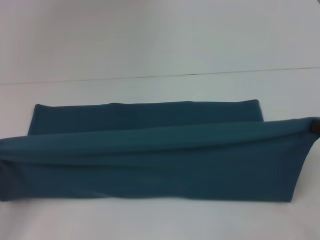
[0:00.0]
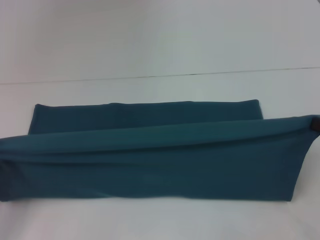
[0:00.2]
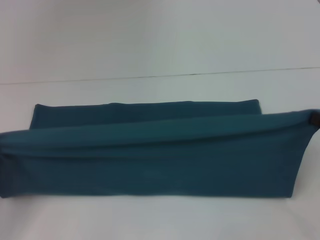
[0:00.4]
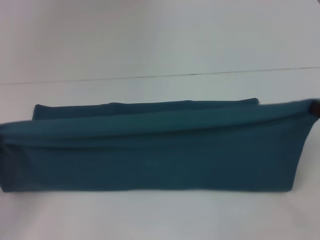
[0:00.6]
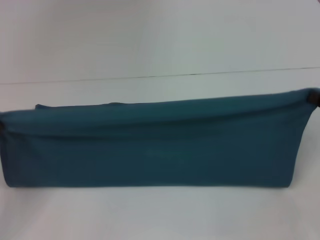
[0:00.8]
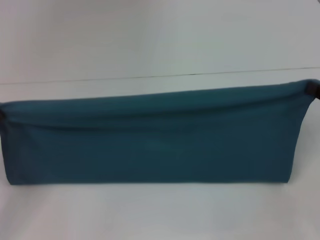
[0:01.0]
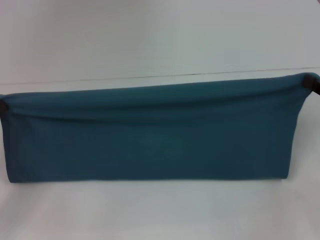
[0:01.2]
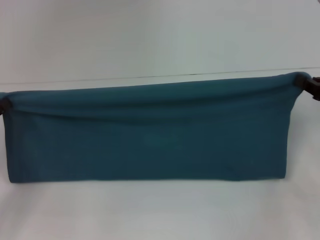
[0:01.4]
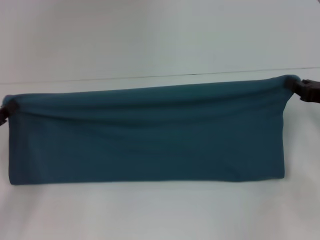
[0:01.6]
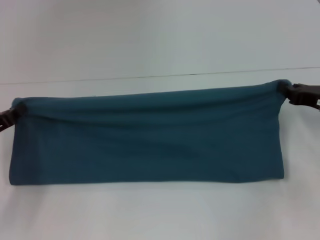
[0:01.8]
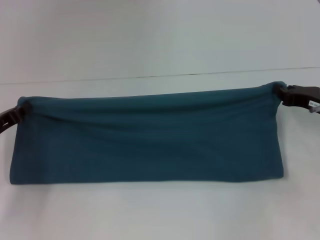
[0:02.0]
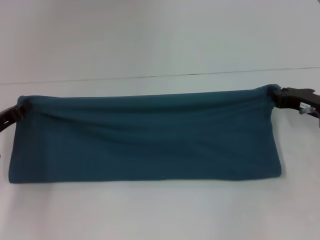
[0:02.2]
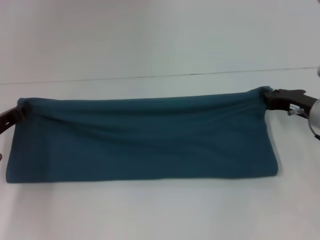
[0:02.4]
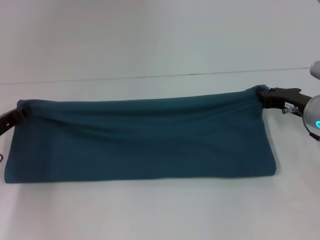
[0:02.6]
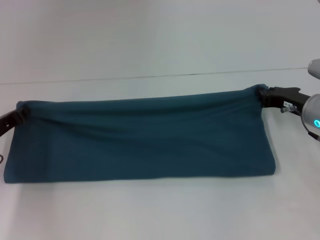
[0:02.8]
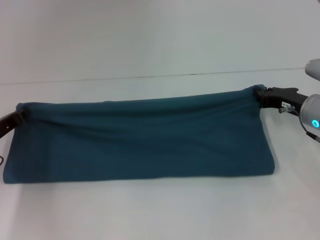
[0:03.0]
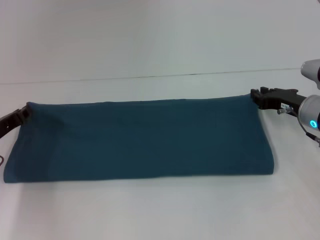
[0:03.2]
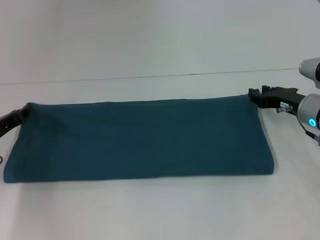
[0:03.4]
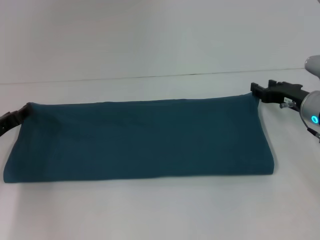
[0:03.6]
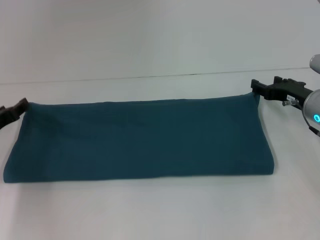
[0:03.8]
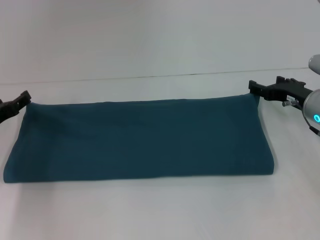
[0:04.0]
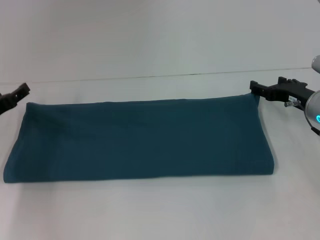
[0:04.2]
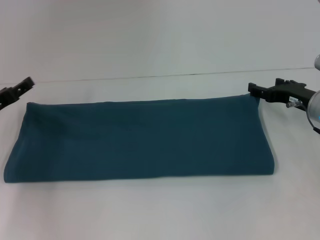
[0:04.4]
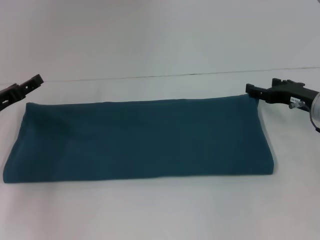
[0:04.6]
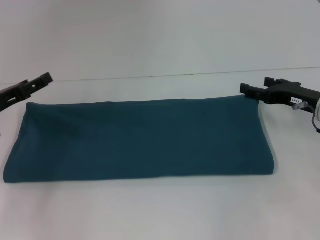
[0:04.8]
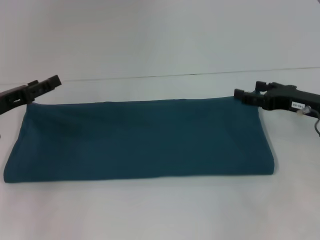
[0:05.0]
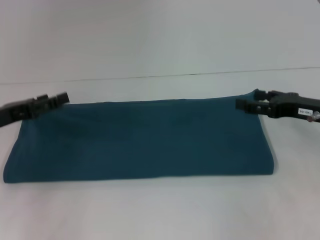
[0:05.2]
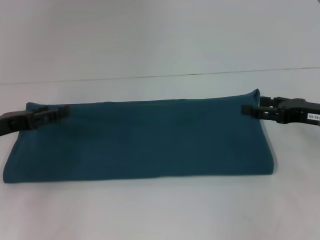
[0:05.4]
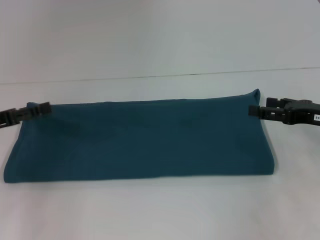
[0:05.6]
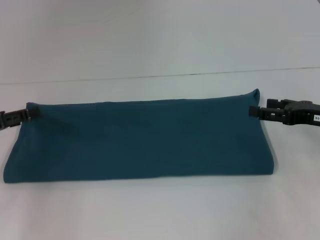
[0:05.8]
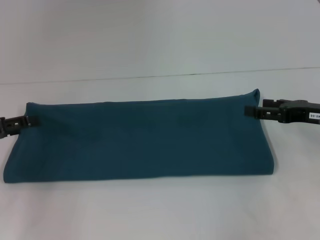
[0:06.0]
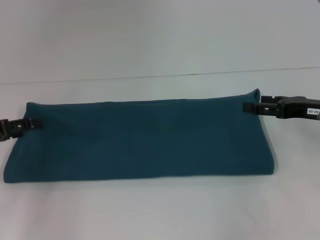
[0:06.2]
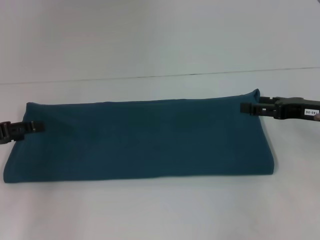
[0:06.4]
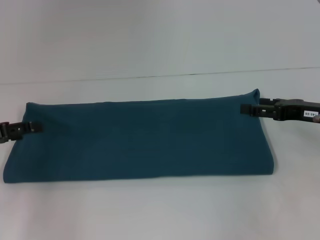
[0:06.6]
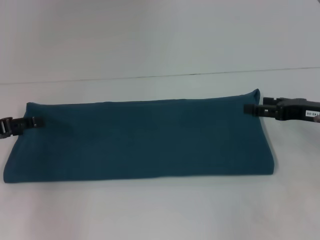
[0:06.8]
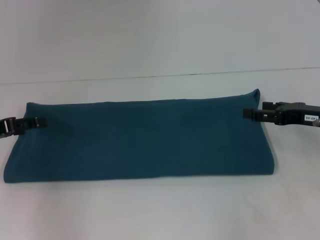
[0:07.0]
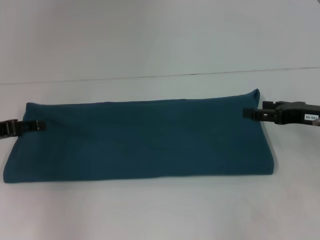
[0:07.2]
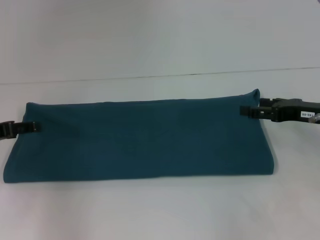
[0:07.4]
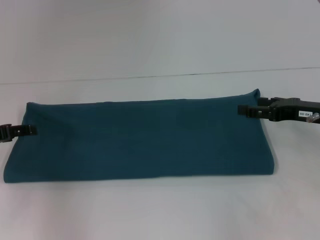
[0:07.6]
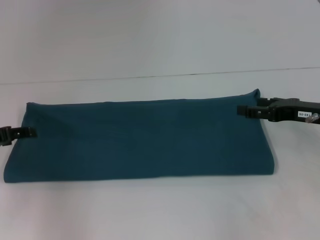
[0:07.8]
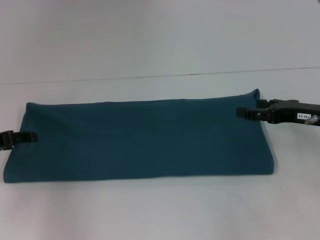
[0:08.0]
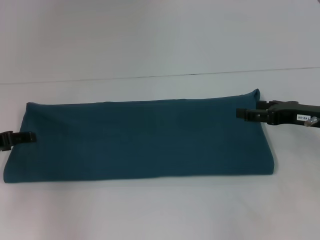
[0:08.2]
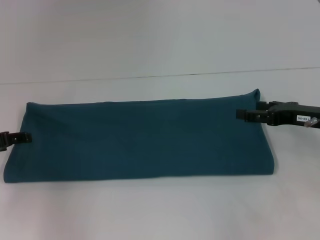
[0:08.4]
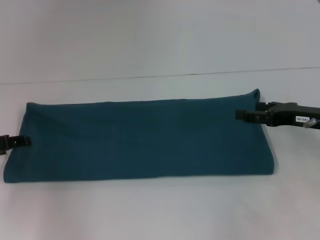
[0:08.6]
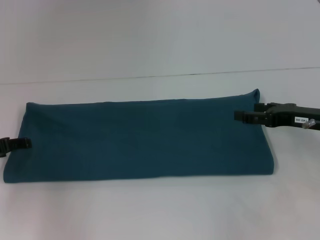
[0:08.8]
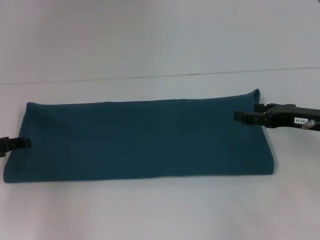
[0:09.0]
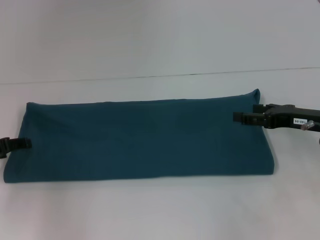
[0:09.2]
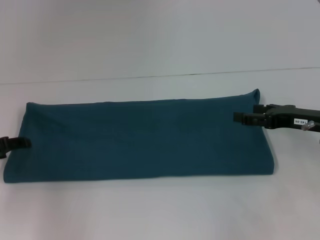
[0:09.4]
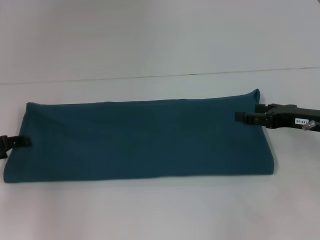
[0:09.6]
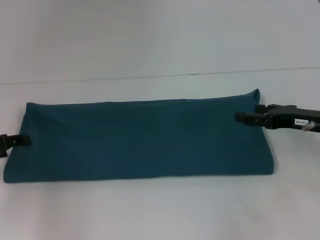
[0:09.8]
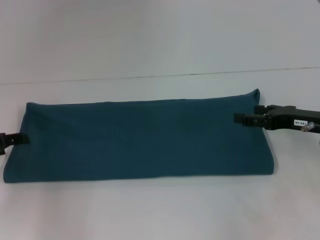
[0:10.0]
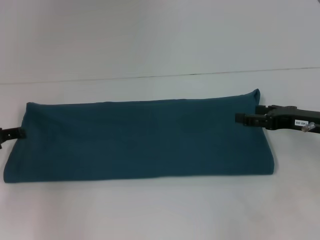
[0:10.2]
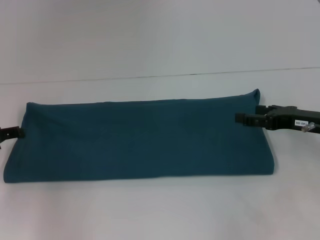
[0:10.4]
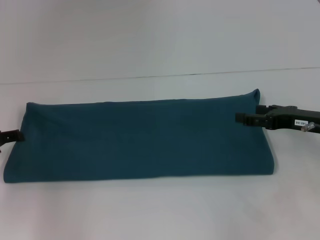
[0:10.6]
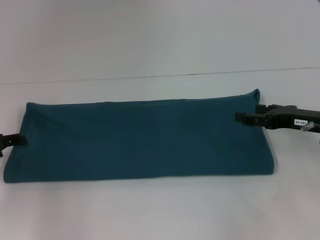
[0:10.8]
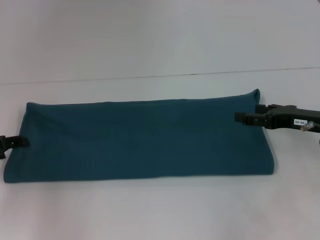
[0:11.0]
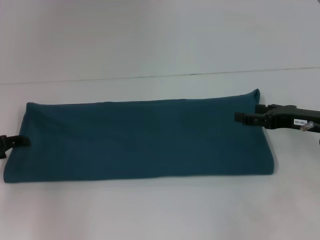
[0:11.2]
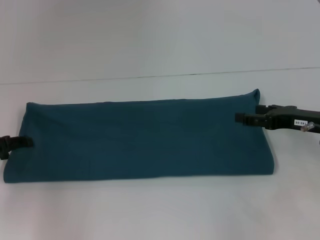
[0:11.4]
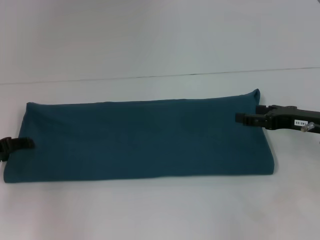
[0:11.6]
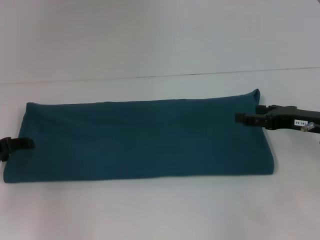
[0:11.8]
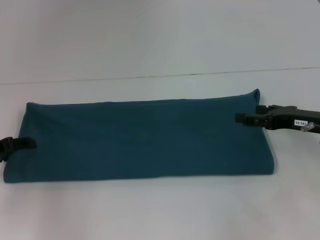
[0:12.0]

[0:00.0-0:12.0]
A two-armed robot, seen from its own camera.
Step, 0:00.0 to 0:03.0: Fold the clothes to the left.
0:00.0 to 0:01.6: Both grippers move forward, some 10 cm.
0:01.6 to 0:03.0: The left gripper moves roughly 5 cm. Meanwhile the right gripper goes approximately 5 cm to the left.
0:03.0 to 0:04.4: The right gripper opens up. Meanwhile the left gripper opens its fingers.
0:04.4 to 0:06.0: The left gripper moves roughly 5 cm; the right gripper ends up about 5 cm from where it was.
0:06.0 to 0:07.6: There are only small adjustments of the grippers.
0:07.6 to 0:10.4: The grippers stay close to where they were, moving slightly.

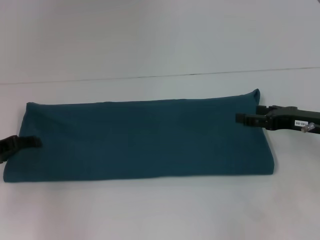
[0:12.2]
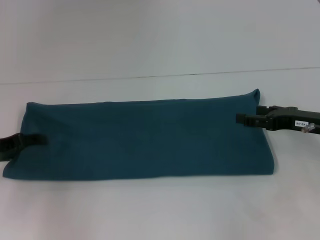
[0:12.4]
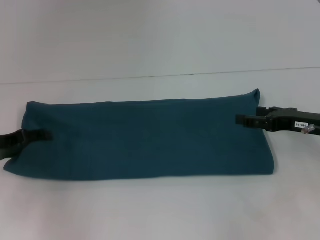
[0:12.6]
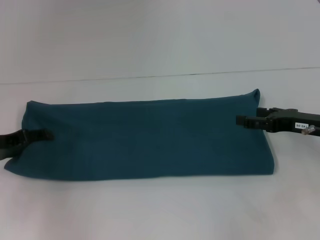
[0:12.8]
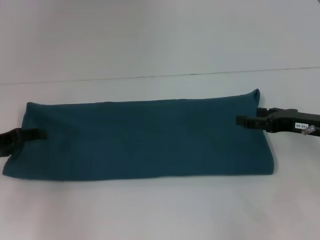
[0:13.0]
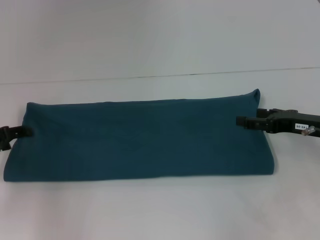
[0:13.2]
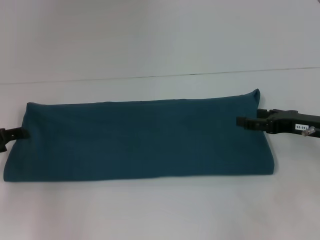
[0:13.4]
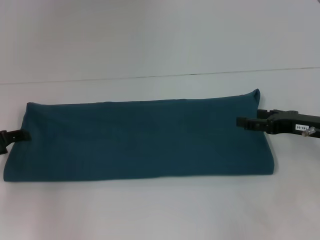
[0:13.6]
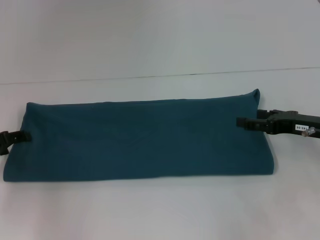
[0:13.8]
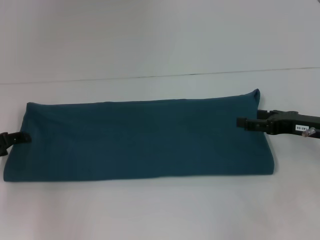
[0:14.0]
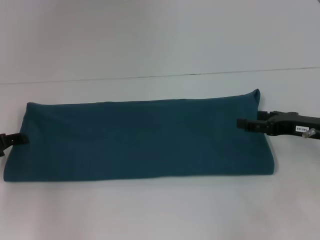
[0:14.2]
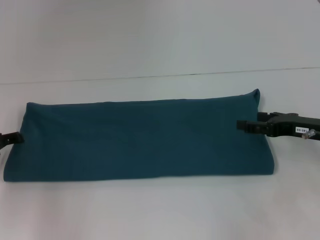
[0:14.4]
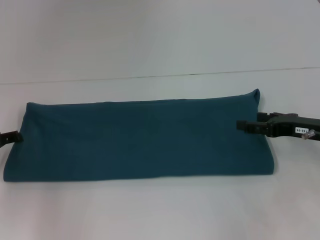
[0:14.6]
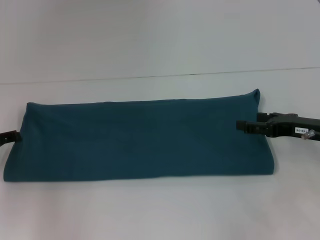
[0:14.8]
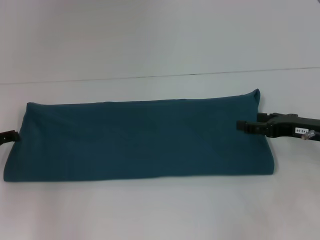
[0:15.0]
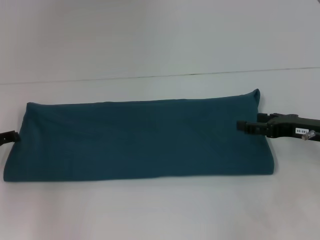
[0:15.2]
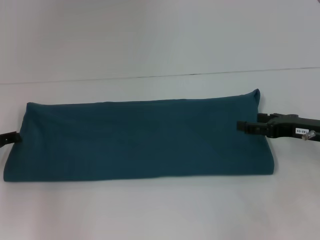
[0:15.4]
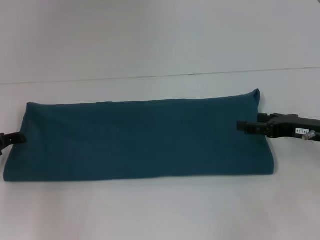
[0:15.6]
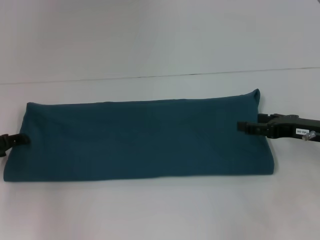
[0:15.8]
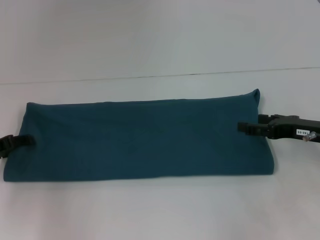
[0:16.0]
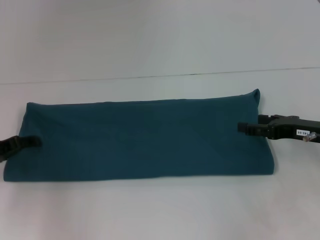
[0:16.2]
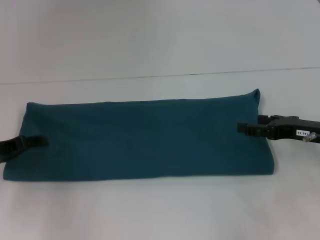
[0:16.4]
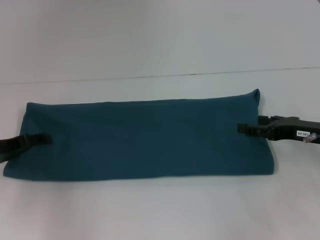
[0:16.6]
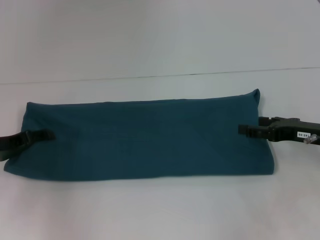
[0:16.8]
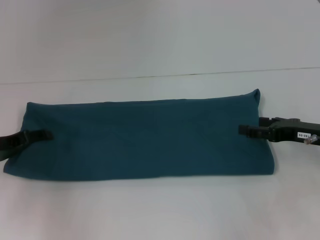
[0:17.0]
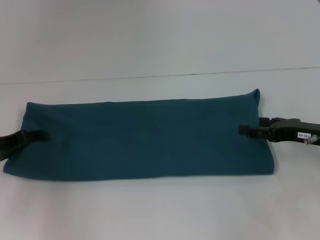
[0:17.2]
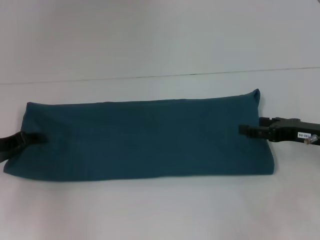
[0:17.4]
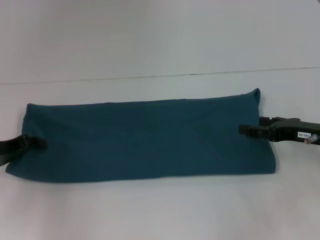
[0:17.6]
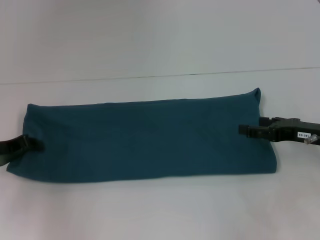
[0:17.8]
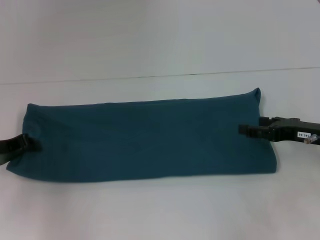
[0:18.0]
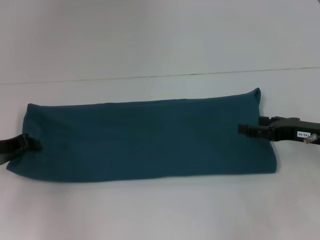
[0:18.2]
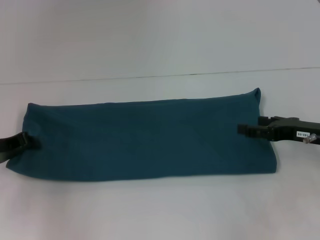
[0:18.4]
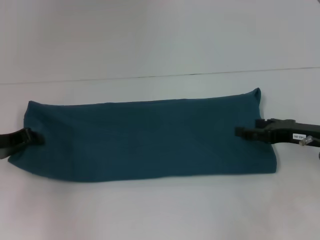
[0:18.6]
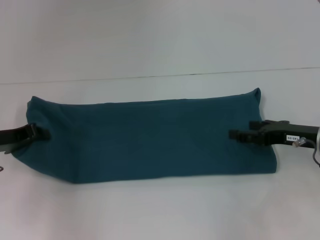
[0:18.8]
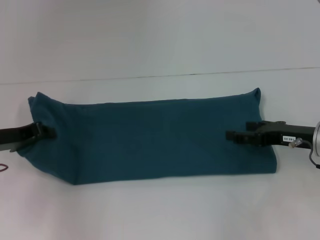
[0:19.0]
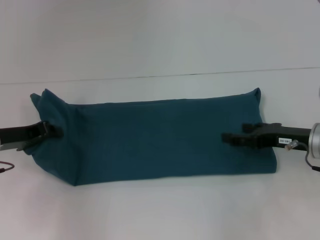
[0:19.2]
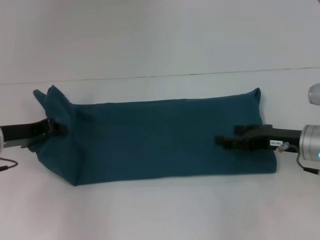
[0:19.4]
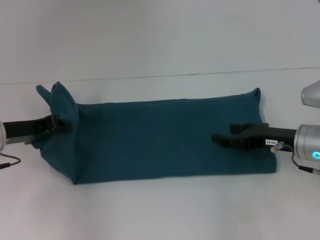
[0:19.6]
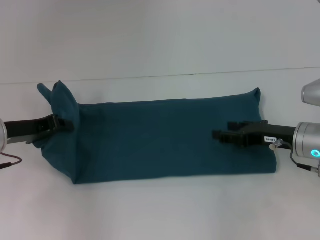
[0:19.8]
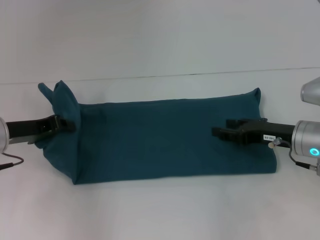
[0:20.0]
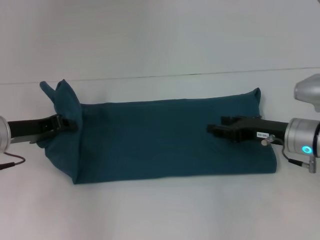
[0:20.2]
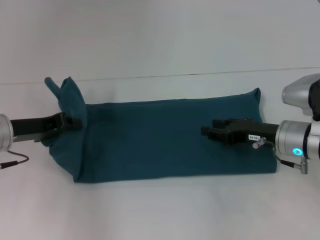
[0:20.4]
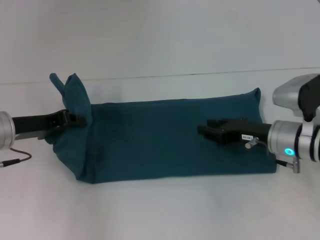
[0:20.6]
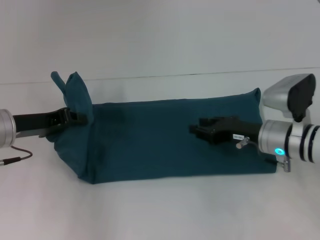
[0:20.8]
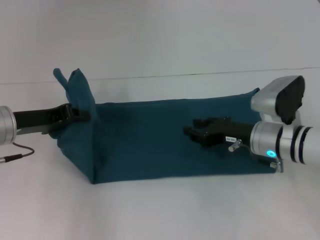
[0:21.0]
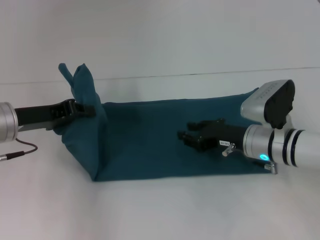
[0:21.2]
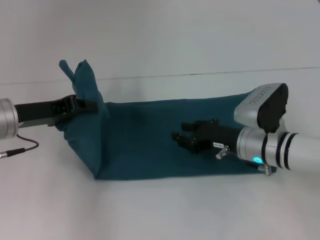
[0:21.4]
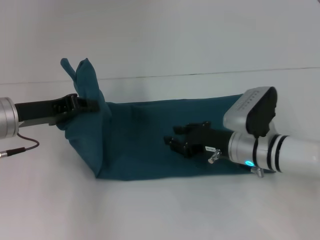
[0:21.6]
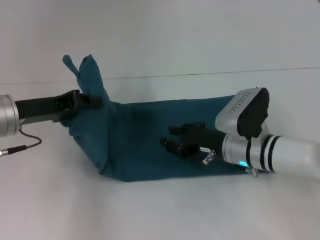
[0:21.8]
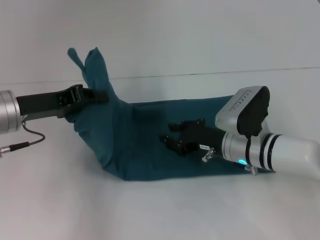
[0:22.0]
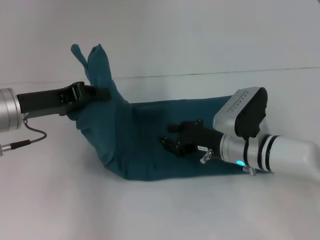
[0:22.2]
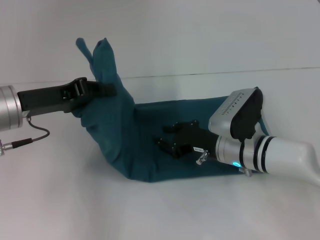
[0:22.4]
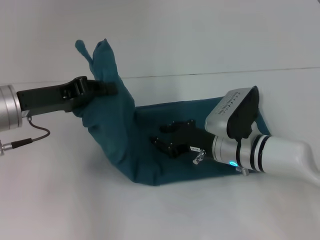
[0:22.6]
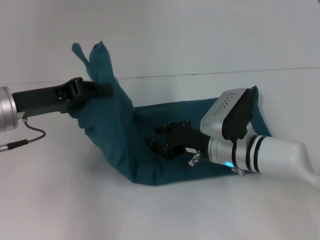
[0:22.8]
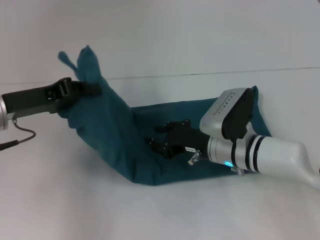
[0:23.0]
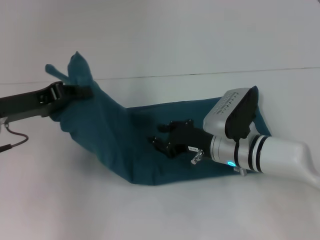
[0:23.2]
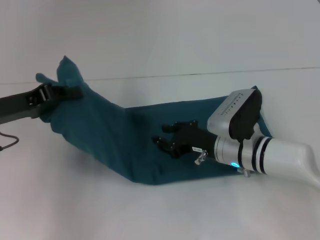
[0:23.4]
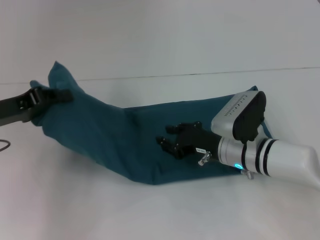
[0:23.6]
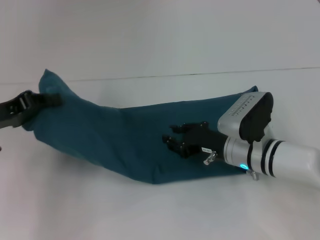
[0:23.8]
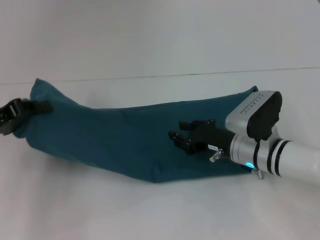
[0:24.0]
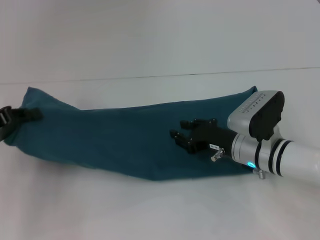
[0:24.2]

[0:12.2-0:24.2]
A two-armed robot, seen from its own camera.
0:12.2 to 0:16.6: The grippers move only a little.
0:16.6 to 0:18.2: The left gripper closes.
0:18.2 to 0:19.8: The left gripper changes place by approximately 5 cm.
0:19.8 to 0:21.2: The right gripper is displaced to the left by approximately 5 cm, and closes its fingers.
0:21.2 to 0:22.6: The right gripper heads to the left, covering approximately 5 cm.
0:22.6 to 0:24.2: The left gripper travels to the left by approximately 10 cm.
